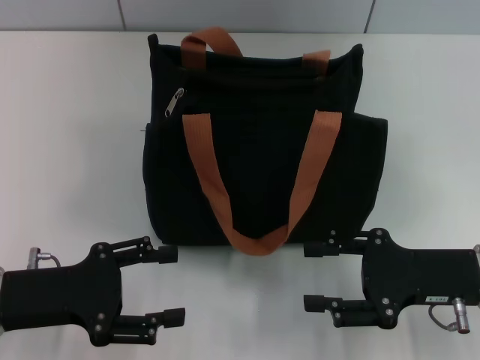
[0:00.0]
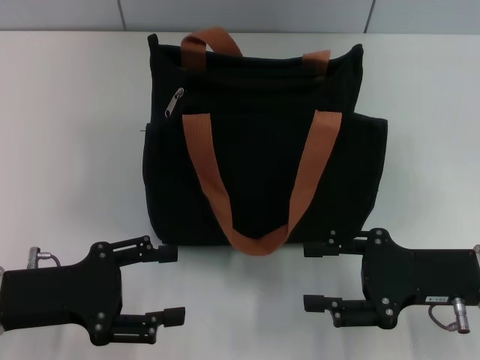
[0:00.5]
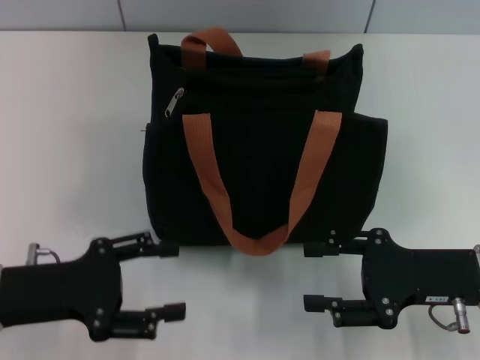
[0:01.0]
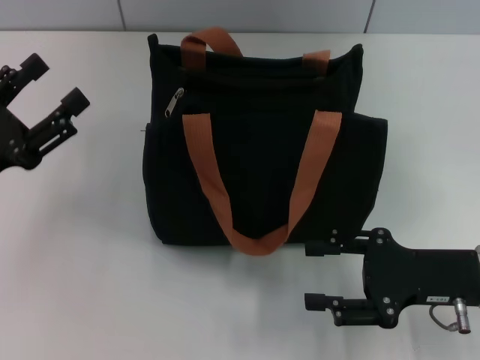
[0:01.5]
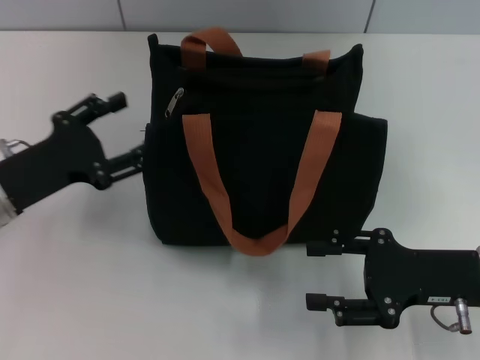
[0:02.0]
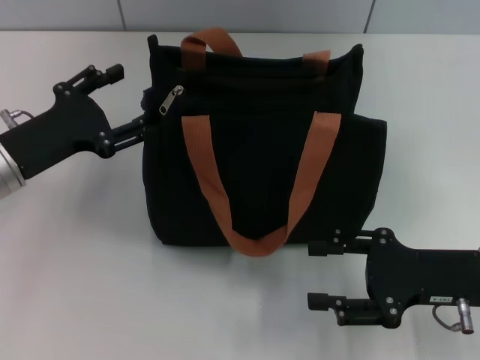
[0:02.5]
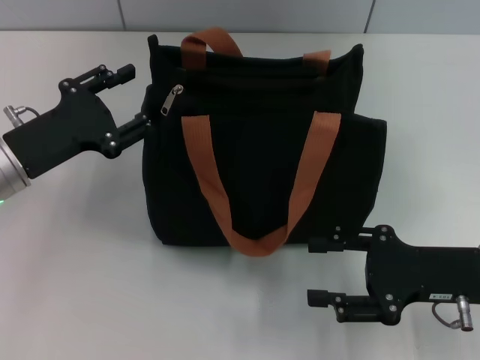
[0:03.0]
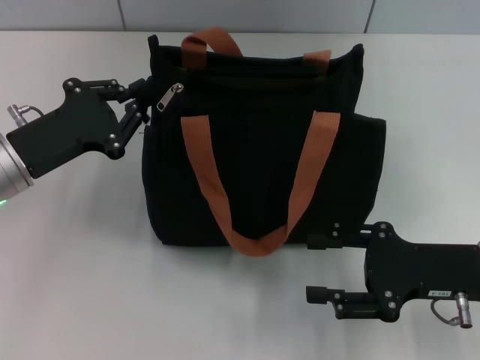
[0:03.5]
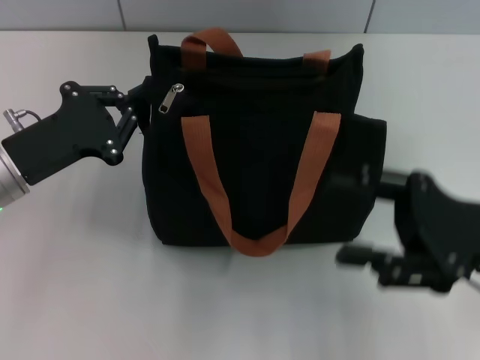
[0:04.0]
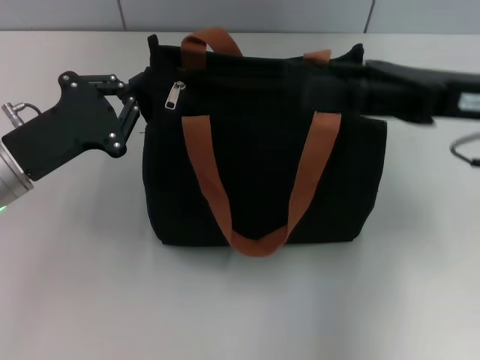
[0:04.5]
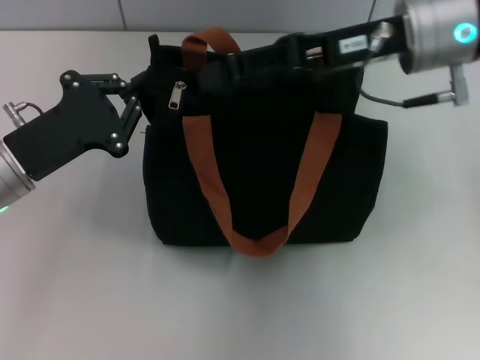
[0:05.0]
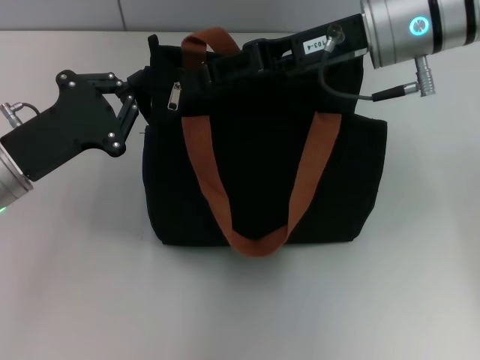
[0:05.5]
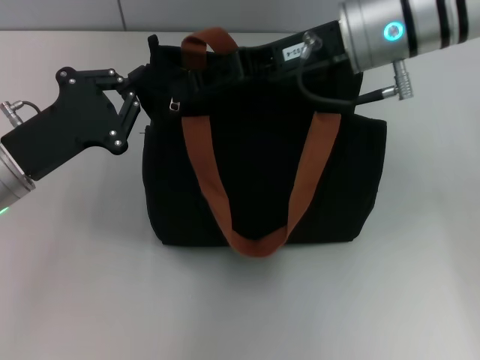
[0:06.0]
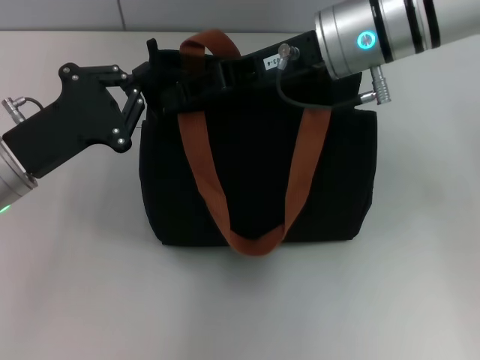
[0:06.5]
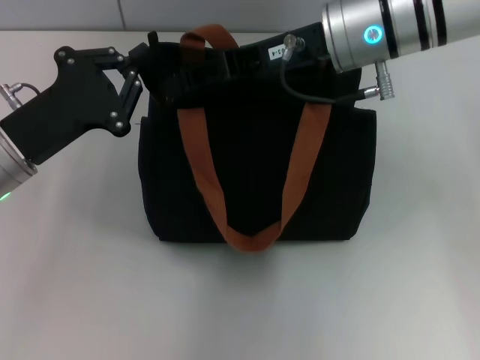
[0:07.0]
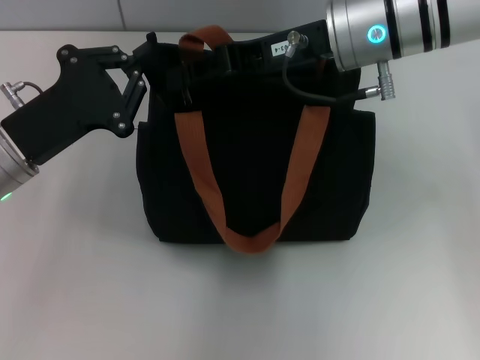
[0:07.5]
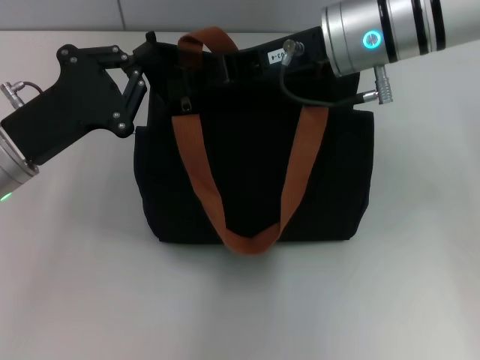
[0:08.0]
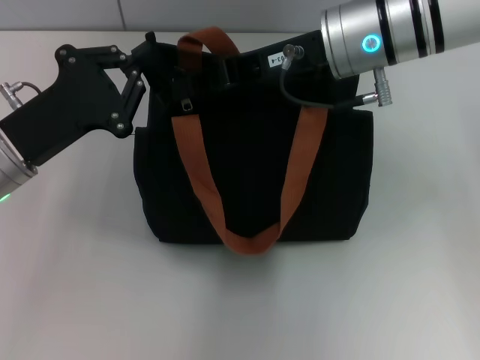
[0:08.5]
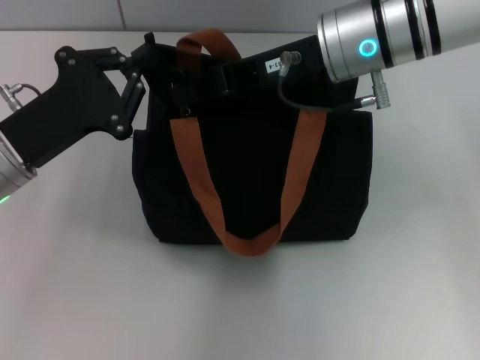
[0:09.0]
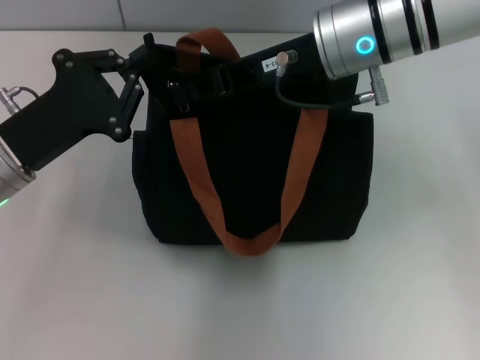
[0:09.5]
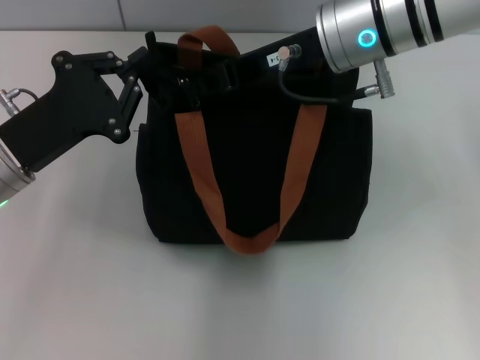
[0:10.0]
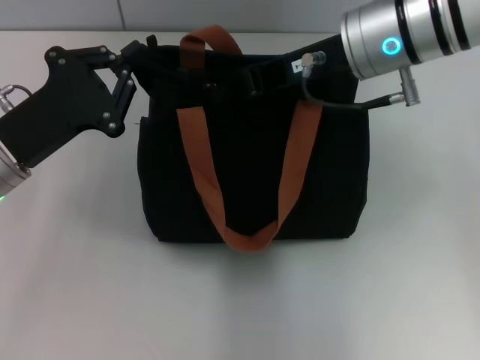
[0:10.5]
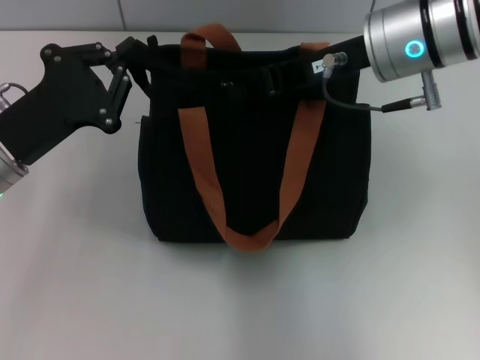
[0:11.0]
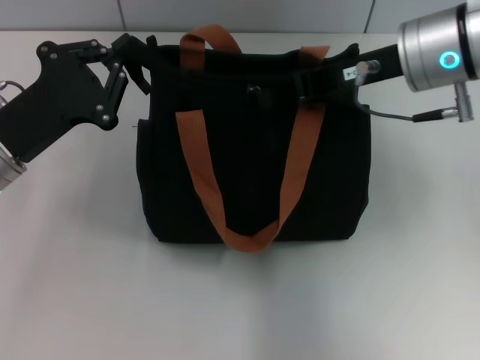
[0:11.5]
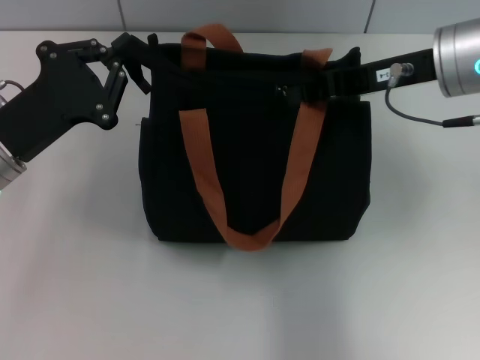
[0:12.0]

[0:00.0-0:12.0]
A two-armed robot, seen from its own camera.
0:00.0 to 0:02.0: The left gripper shifts about 5 cm forward.
0:02.0 to 0:04.0: The left gripper closes; the right gripper heads upward, covering some 5 cm.
0:04.0 to 0:06.0: The right gripper heads forward, to the left and upward, covering roughly 20 cm.
0:06.0 to 0:08.0: There are only small adjustments of the grippers.
0:08.0 to 0:10.0: The right gripper closes its fingers.
0:10.0 to 0:12.0: The right gripper shifts about 10 cm to the right.

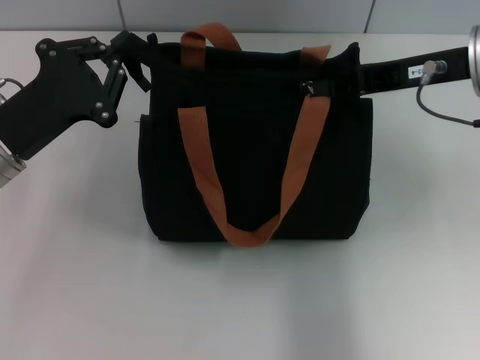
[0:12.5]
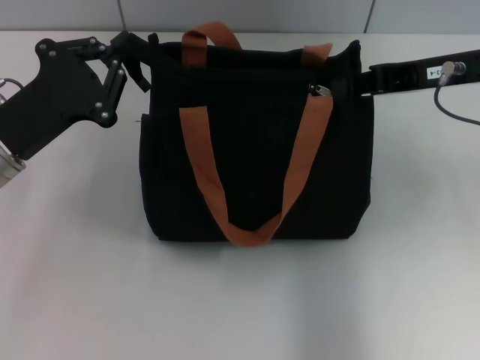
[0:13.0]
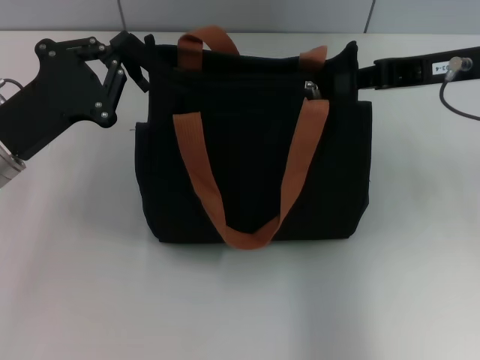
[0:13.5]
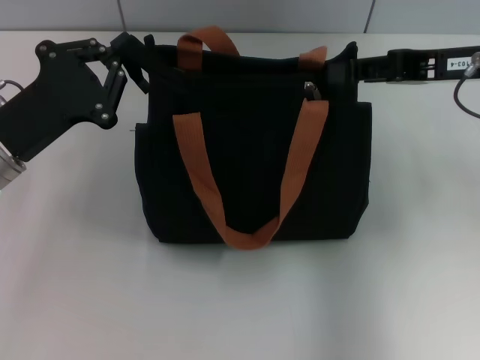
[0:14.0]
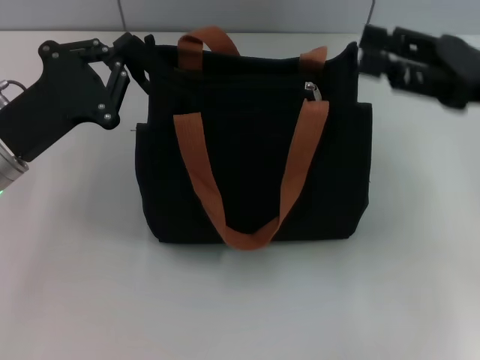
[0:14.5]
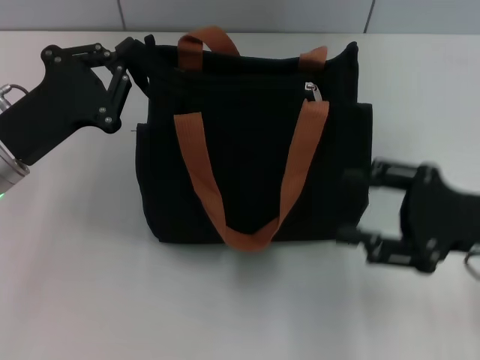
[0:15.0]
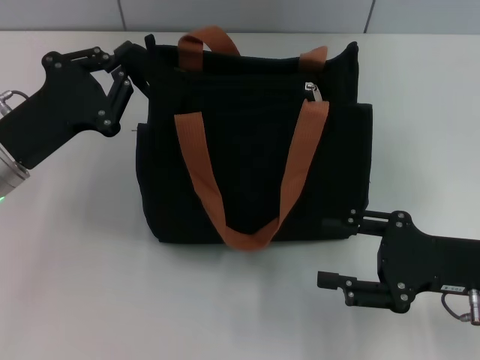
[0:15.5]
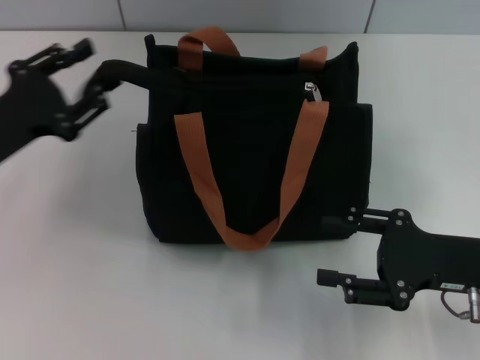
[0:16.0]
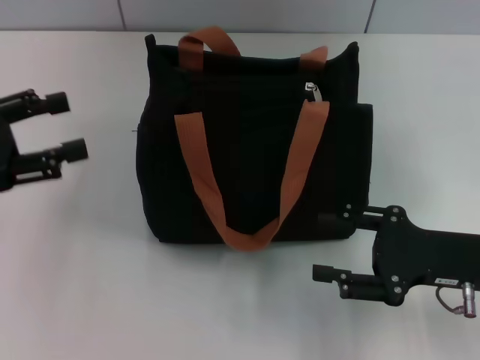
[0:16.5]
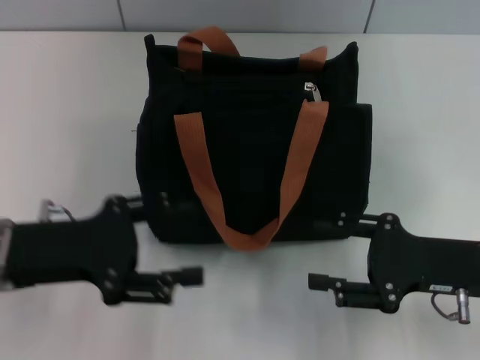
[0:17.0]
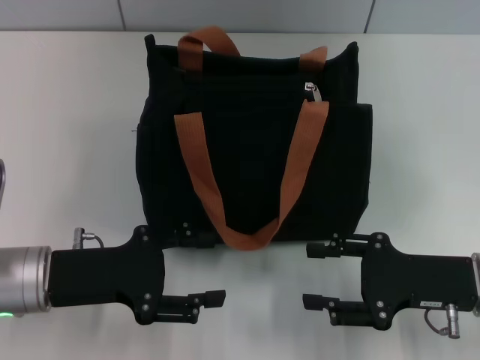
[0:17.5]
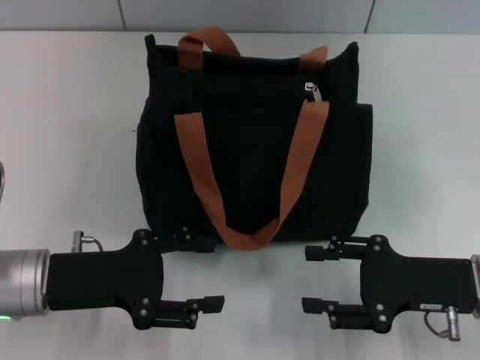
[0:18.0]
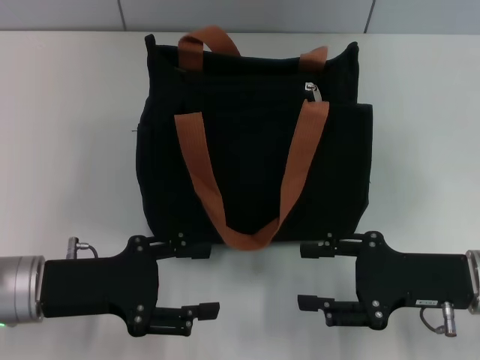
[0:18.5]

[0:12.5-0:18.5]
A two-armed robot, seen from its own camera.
0:12.5 to 0:14.5: The right gripper moves to the right, about 5 cm, and opens.
0:14.5 to 0:16.5: The left gripper moves to the left, some 10 cm, and opens up. Meanwhile the right gripper heads downward and backward, covering approximately 15 cm.
0:16.5 to 0:18.5: The left gripper goes about 15 cm to the right and downward.

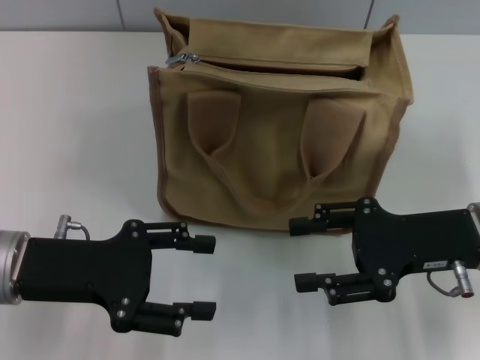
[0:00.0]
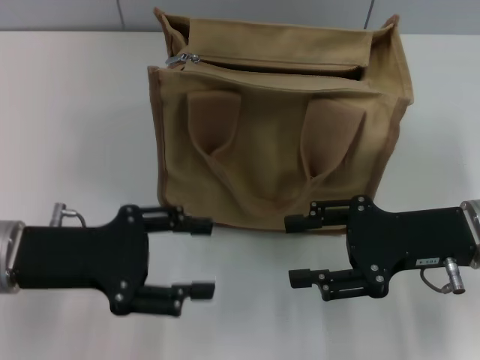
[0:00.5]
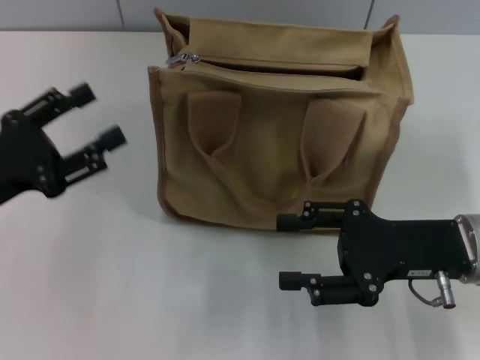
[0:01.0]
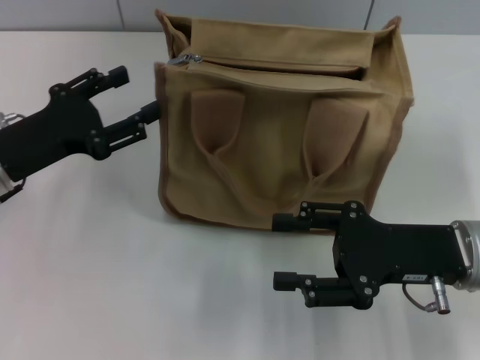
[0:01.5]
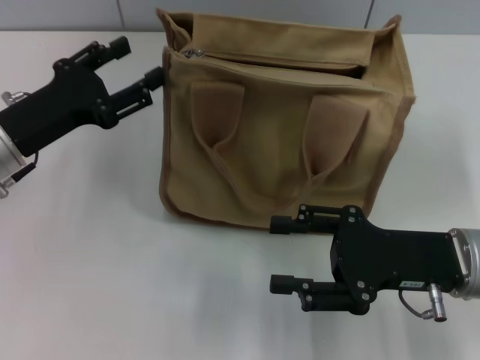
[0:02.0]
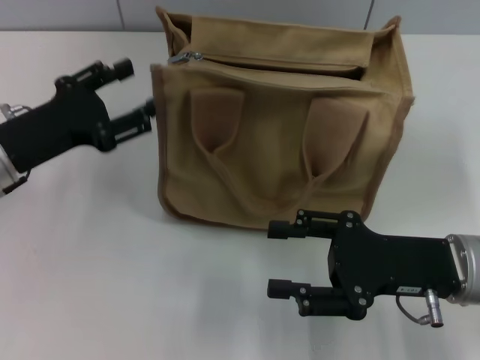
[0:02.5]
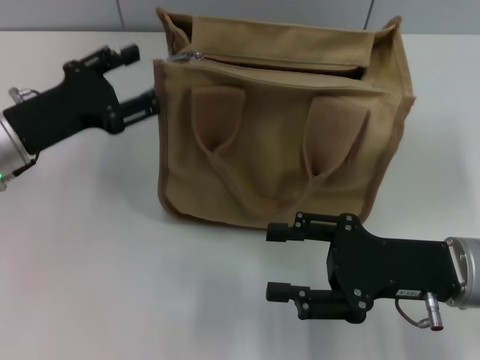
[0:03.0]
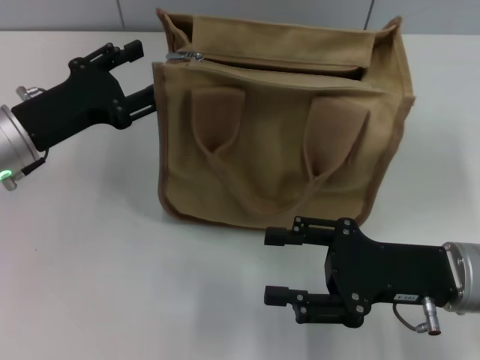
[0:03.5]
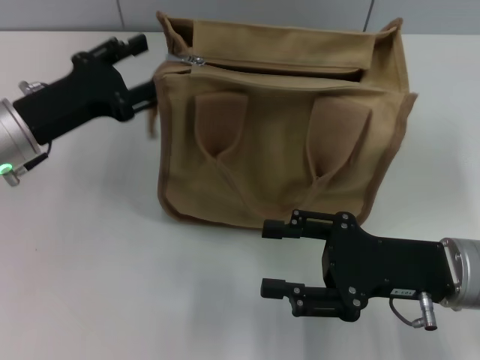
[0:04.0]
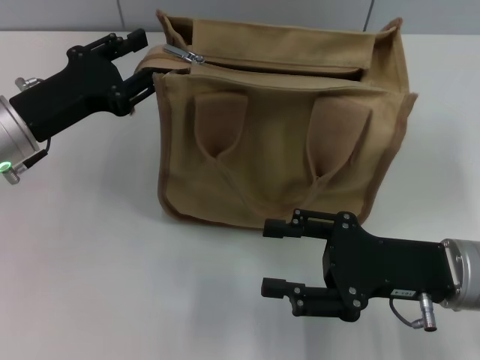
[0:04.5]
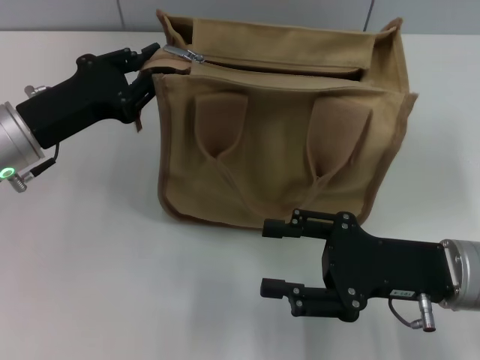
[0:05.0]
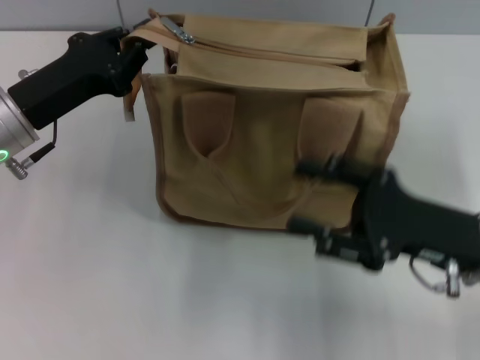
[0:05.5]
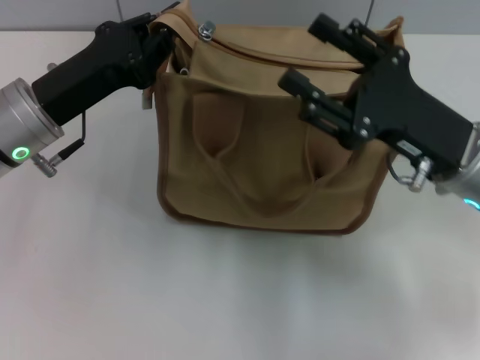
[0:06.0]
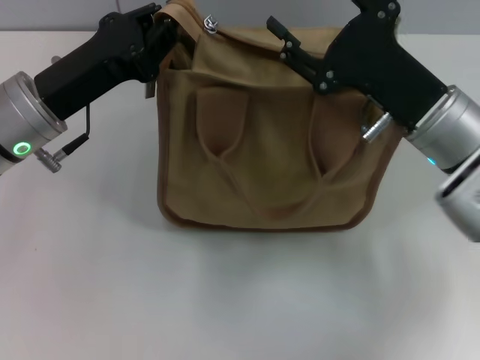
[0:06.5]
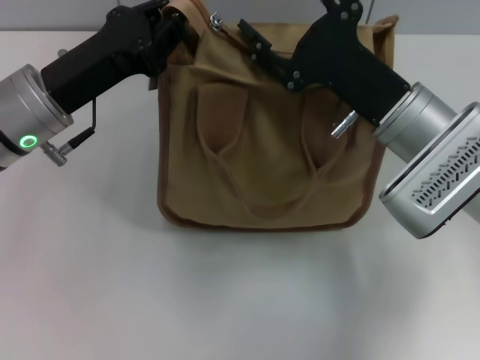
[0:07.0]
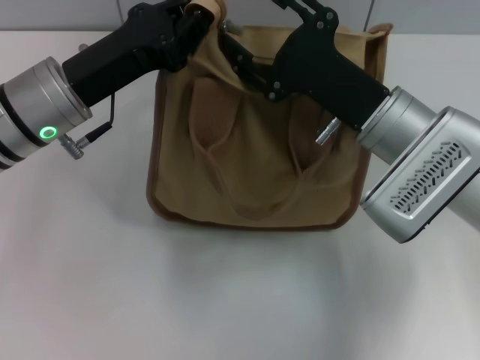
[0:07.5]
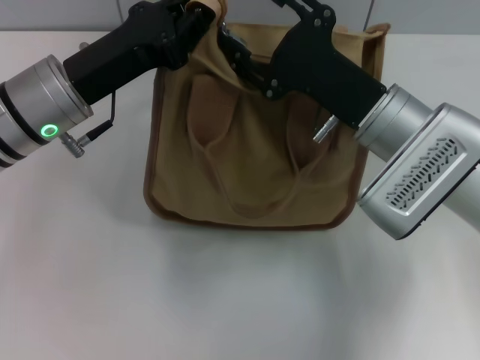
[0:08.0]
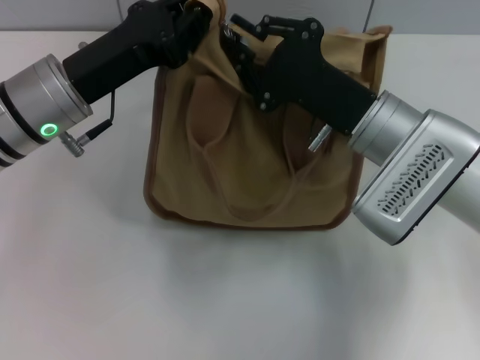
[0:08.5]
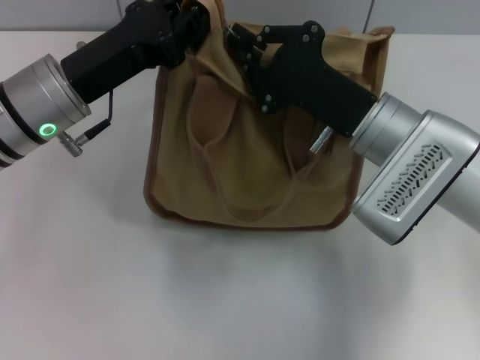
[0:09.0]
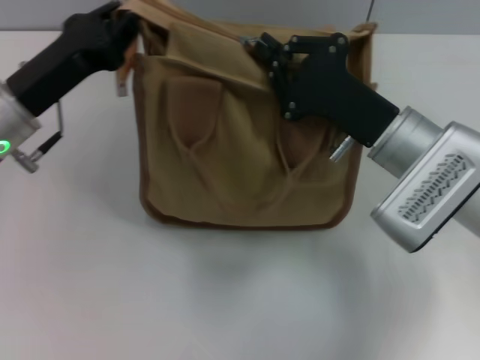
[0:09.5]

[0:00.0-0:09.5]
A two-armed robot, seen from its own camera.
0:00.0 to 0:02.0: The left gripper travels forward by about 5 cm.
0:02.0 to 0:04.0: There are only small adjustments of the grippers.
0:04.0 to 0:05.5: The left gripper closes up.
0:05.5 to 0:07.5: The right gripper heads forward and to the left, covering some 10 cm; the left gripper ends up some 5 cm from where it was.
0:07.5 to 0:09.5: The right gripper closes its fingers.
